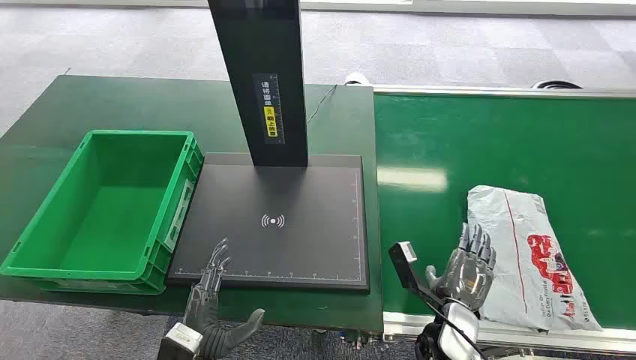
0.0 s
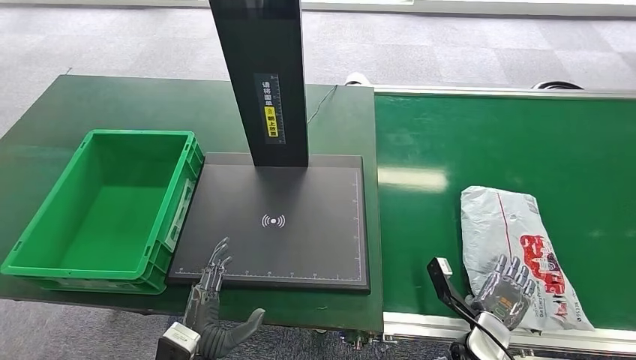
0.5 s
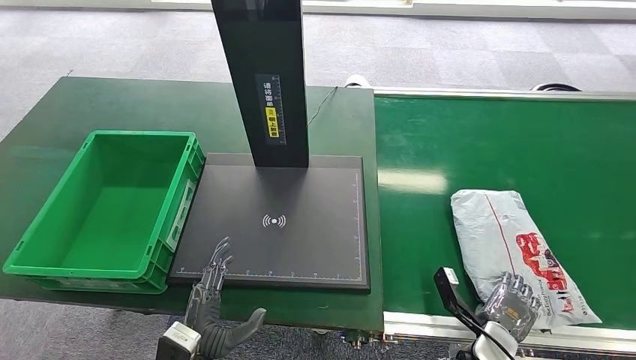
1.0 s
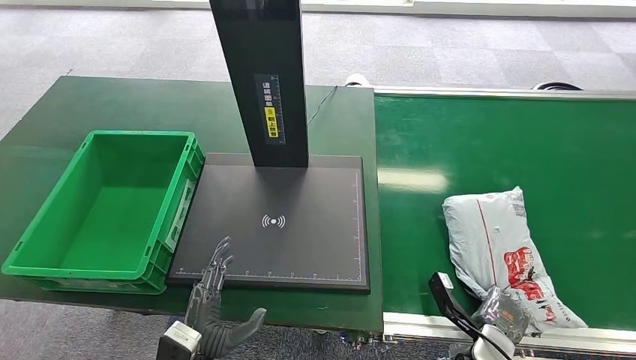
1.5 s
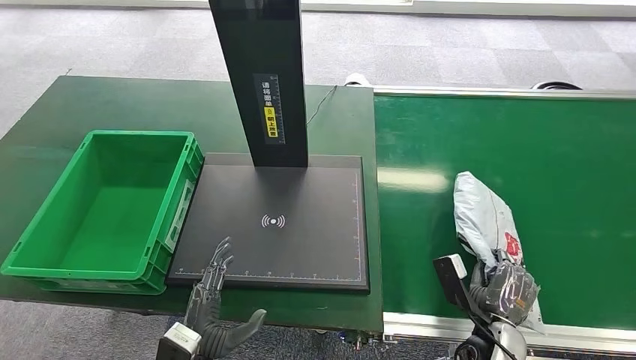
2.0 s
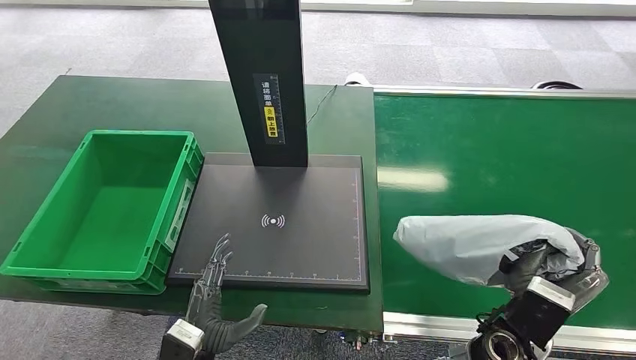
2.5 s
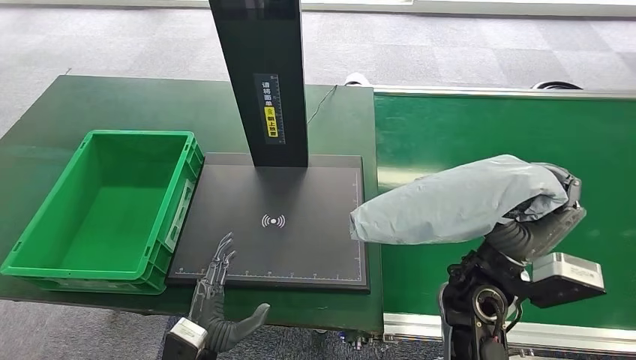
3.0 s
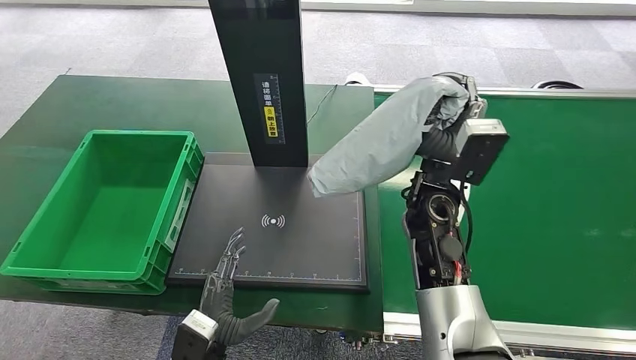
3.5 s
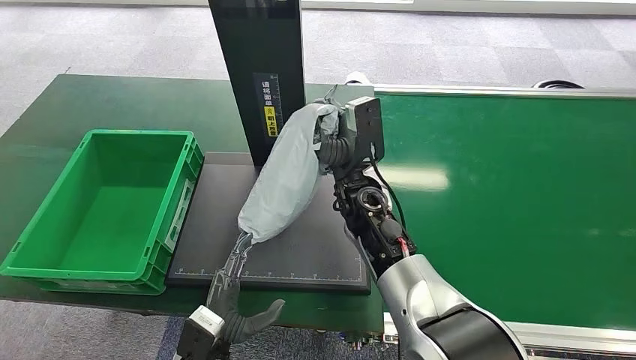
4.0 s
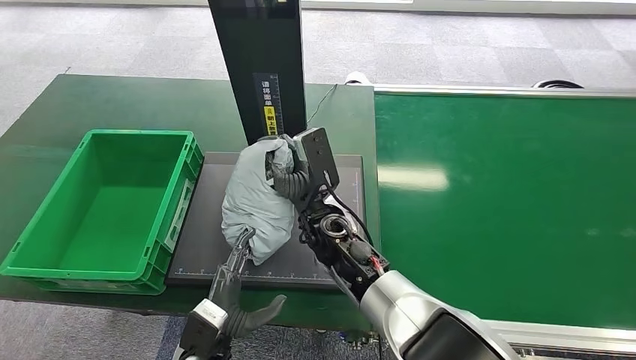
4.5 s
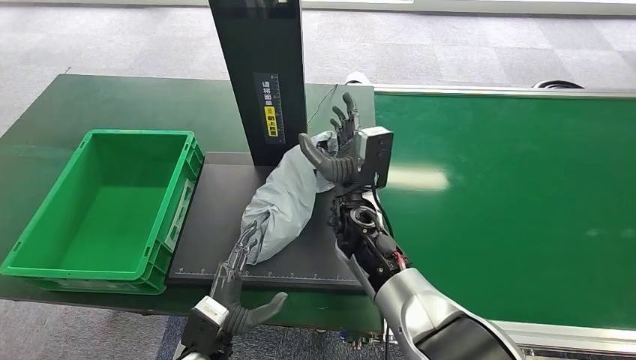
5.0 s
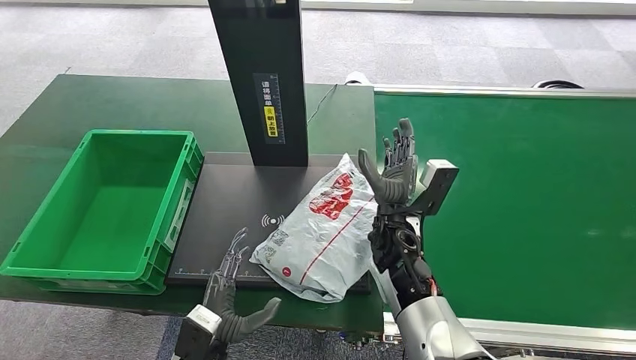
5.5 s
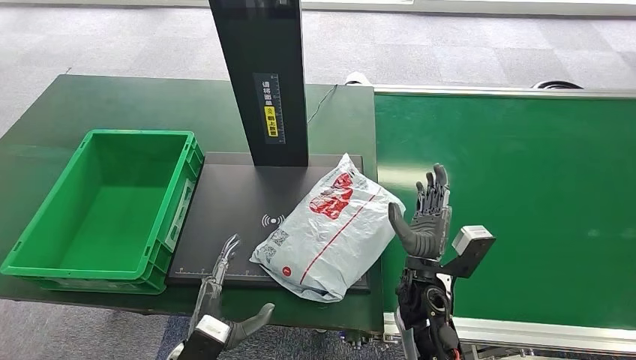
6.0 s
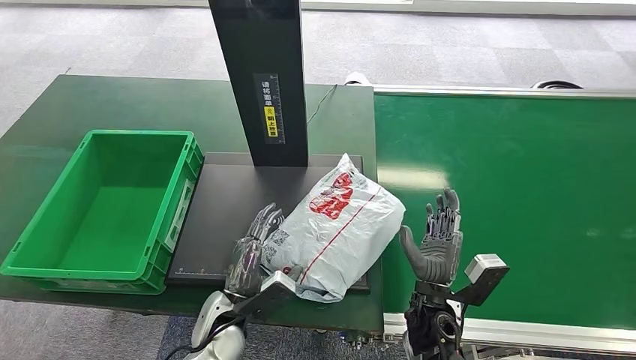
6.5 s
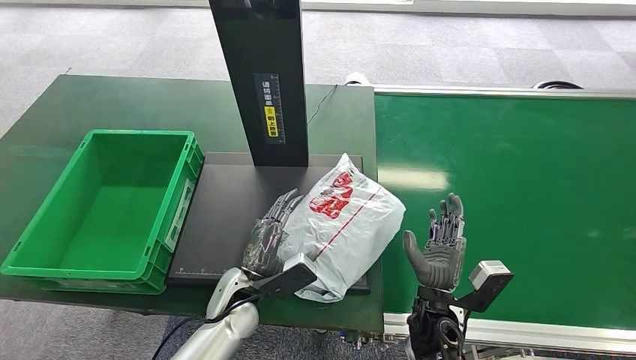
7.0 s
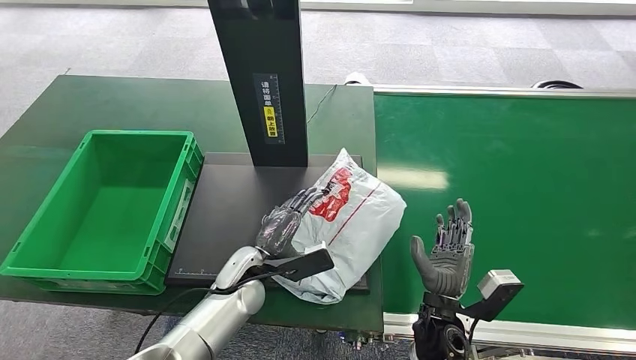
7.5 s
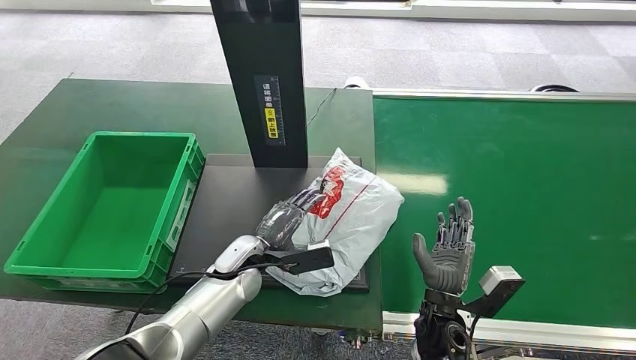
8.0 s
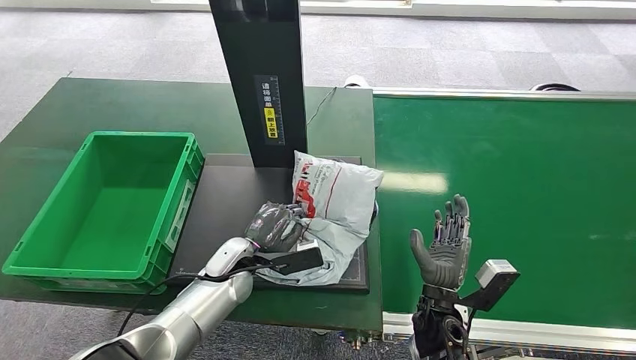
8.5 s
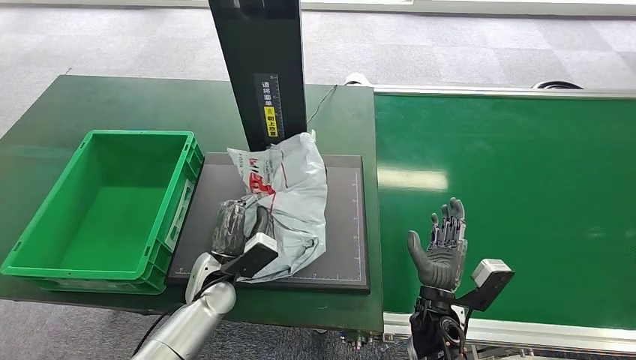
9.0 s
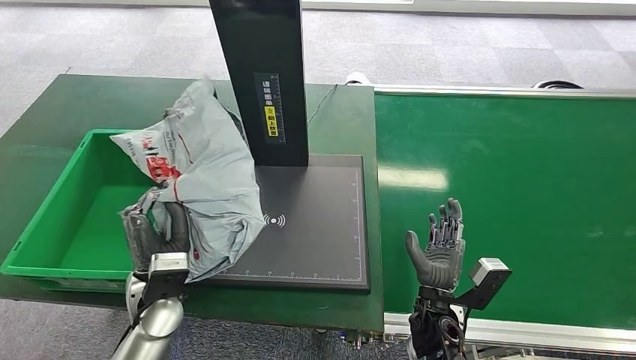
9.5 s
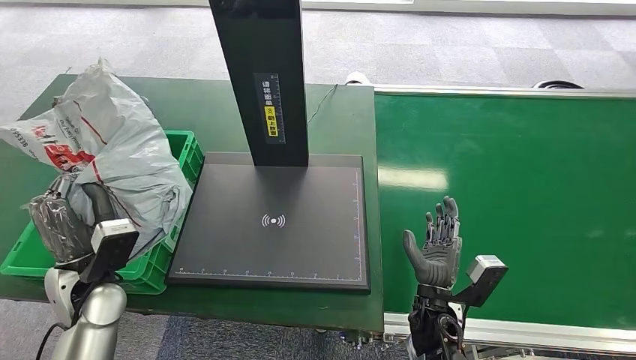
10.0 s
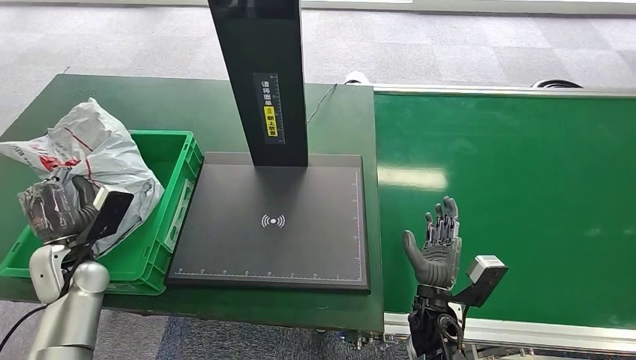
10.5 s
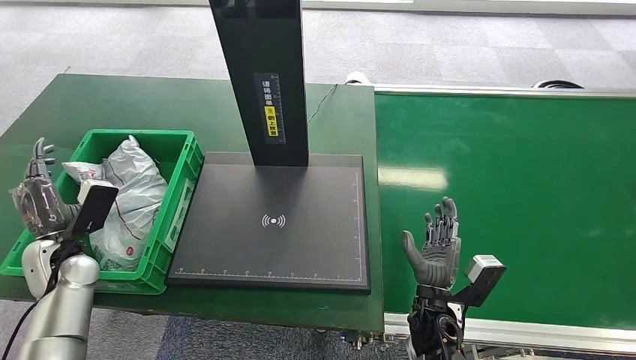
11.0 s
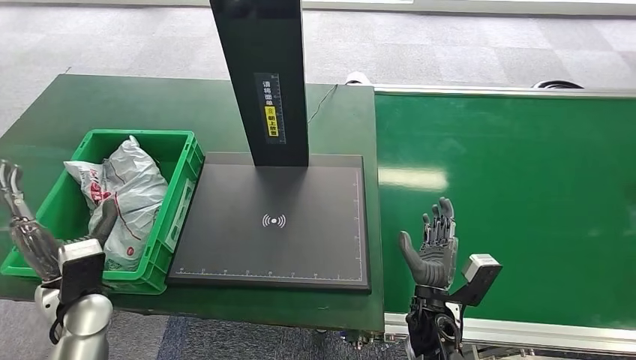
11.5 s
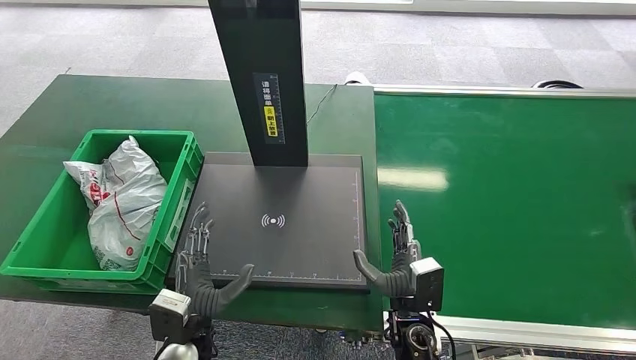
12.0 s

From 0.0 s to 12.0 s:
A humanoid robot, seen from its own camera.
Step, from 0.0 s to 2.5 s: Pick up the package from the conveyor belt.
Step, from 3.0 s to 6.0 s: Place the package onto the inbound machine.
Step, from 6.5 s to 9.0 s: Pick up the package from the inbound machine.
Step, from 10.0 s to 12.0 s: Place the package into the parcel locker.
From 4.0 s to 6.0 s: The right hand shifts some 20 cm downward, backward and to the right.
From 10.0 s to 12.0 s: The left hand goes some 20 cm to the right, downward and backward.
